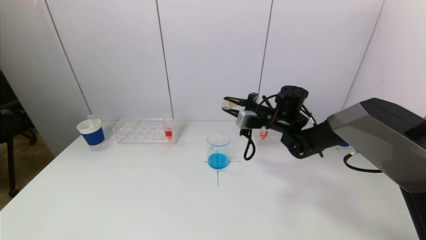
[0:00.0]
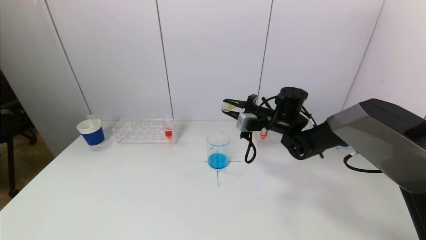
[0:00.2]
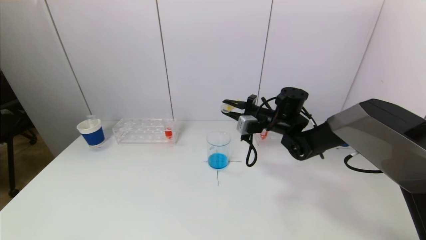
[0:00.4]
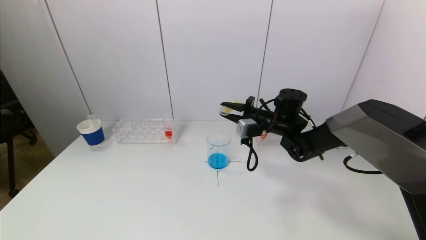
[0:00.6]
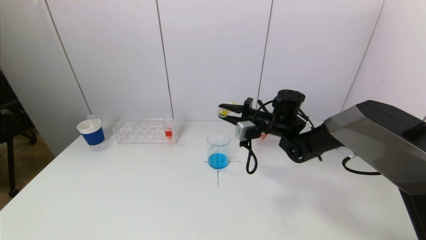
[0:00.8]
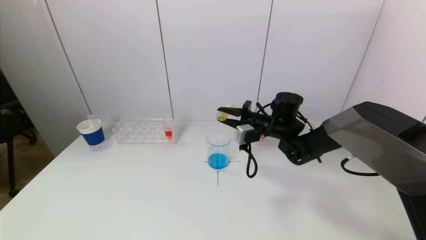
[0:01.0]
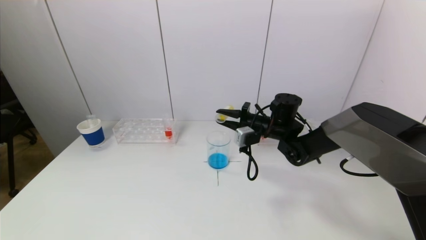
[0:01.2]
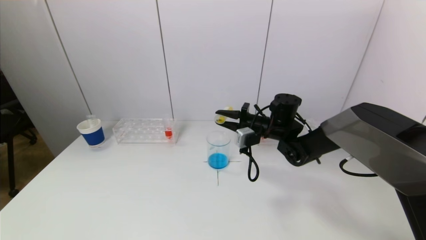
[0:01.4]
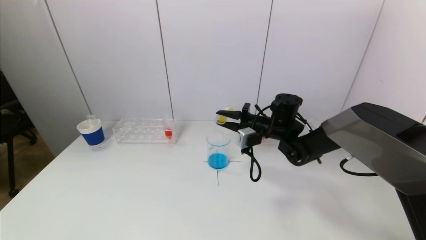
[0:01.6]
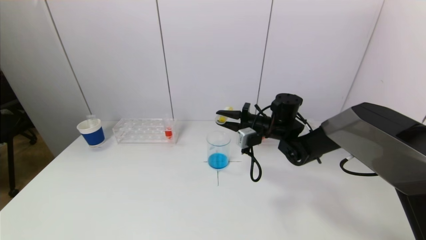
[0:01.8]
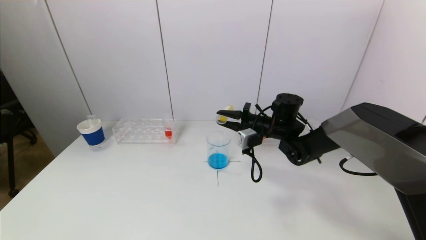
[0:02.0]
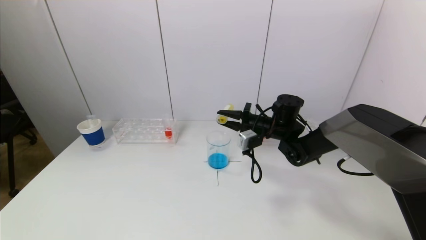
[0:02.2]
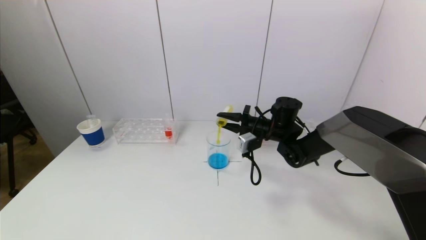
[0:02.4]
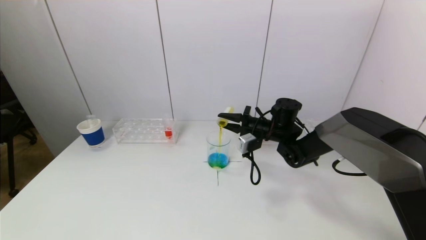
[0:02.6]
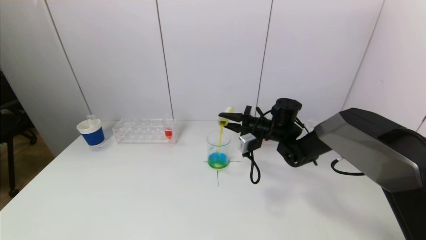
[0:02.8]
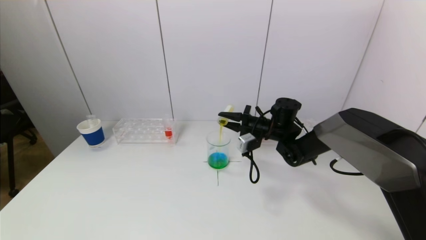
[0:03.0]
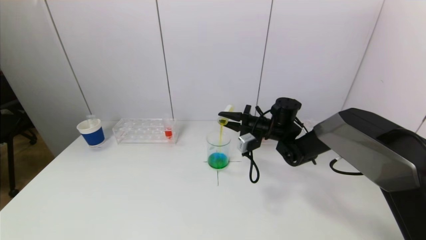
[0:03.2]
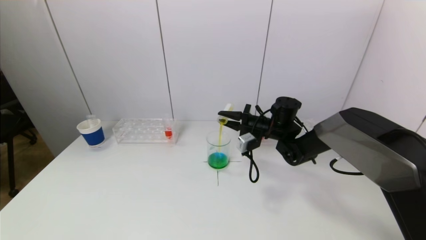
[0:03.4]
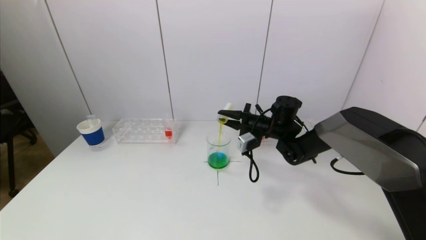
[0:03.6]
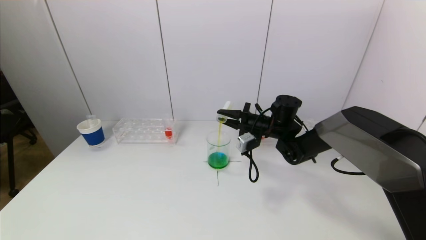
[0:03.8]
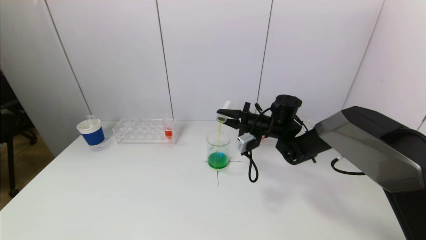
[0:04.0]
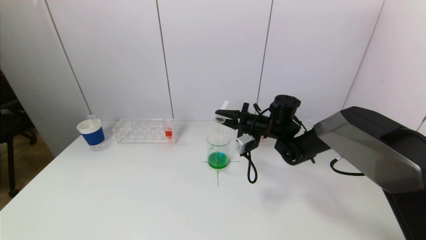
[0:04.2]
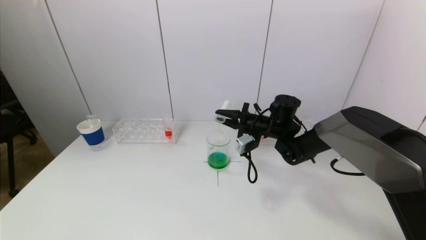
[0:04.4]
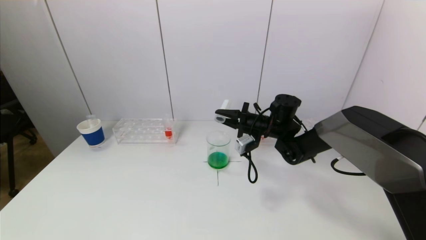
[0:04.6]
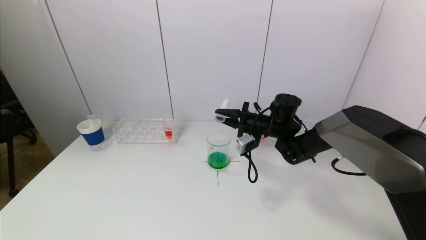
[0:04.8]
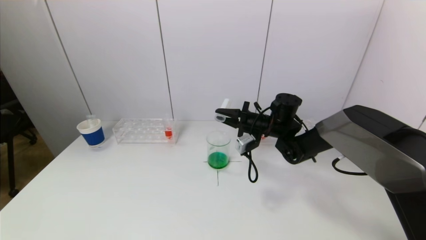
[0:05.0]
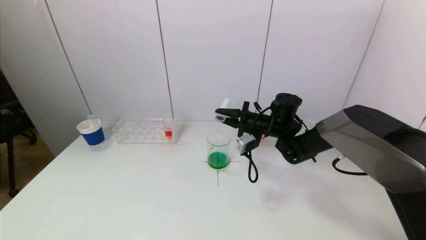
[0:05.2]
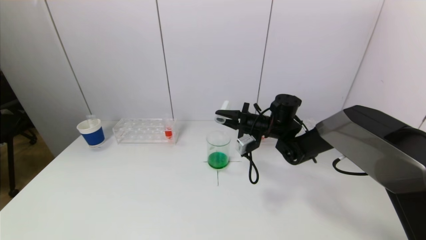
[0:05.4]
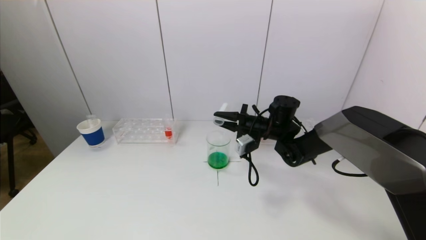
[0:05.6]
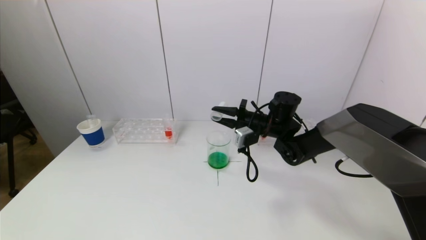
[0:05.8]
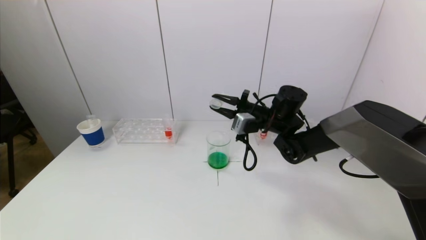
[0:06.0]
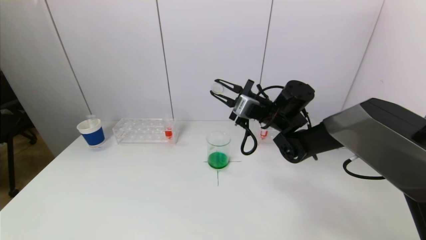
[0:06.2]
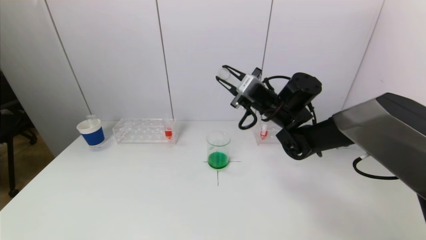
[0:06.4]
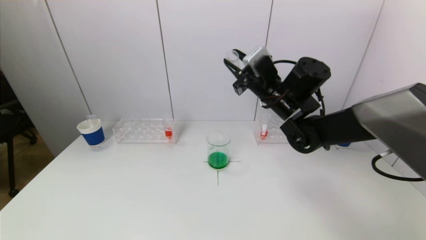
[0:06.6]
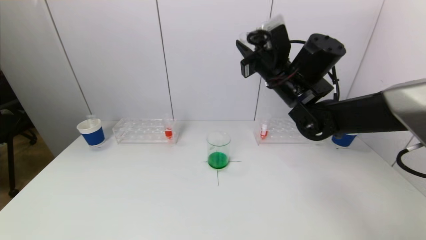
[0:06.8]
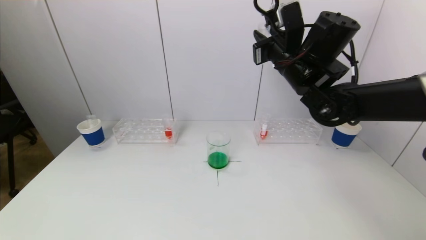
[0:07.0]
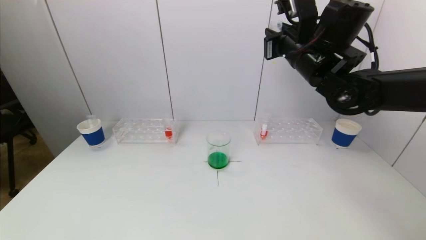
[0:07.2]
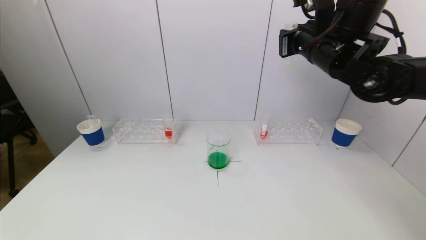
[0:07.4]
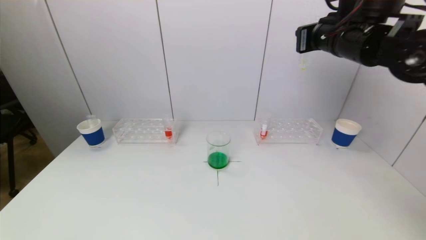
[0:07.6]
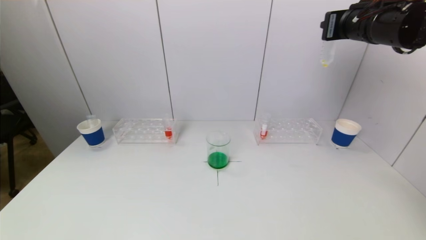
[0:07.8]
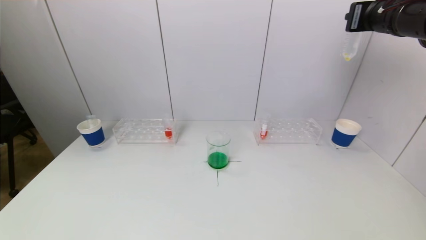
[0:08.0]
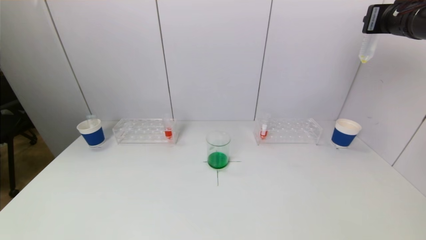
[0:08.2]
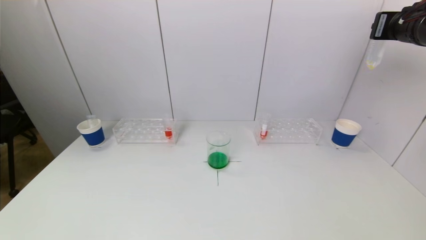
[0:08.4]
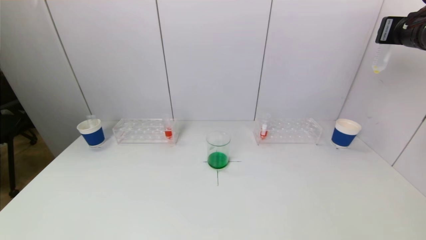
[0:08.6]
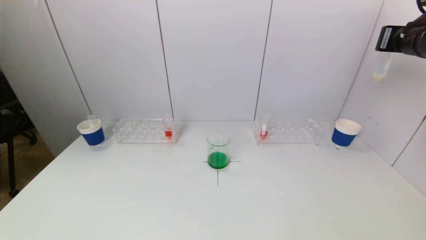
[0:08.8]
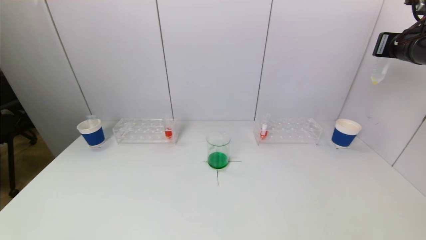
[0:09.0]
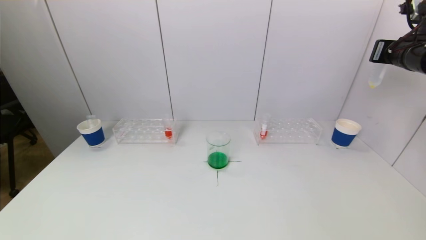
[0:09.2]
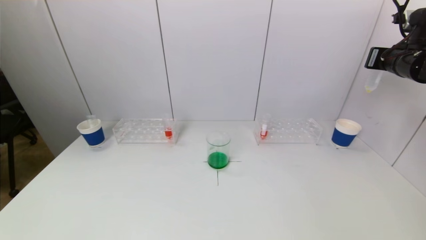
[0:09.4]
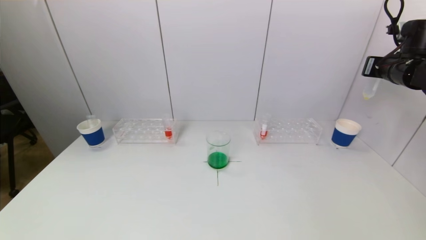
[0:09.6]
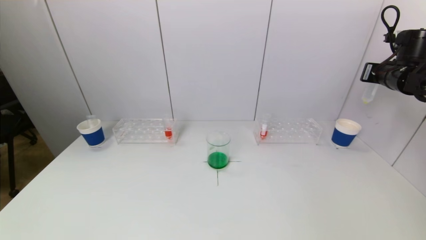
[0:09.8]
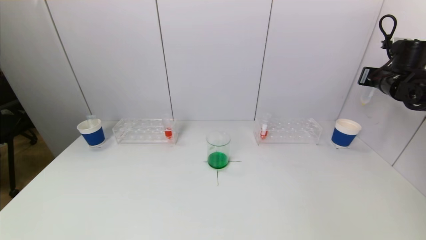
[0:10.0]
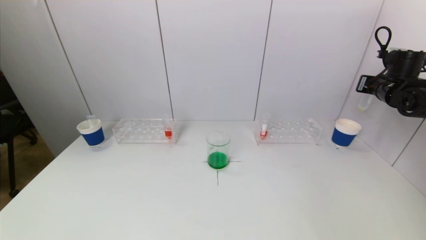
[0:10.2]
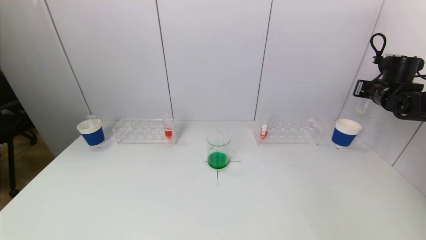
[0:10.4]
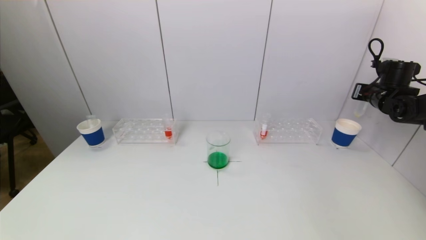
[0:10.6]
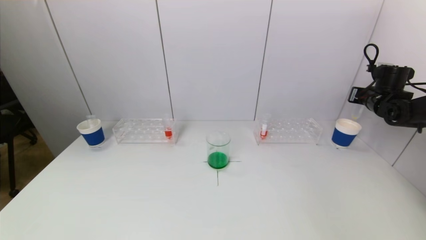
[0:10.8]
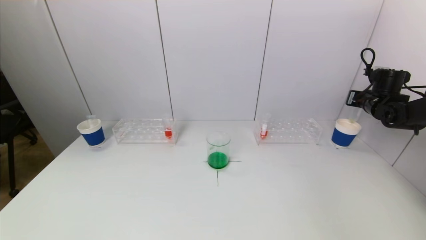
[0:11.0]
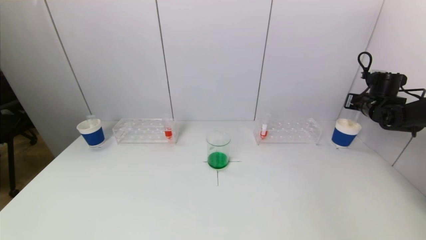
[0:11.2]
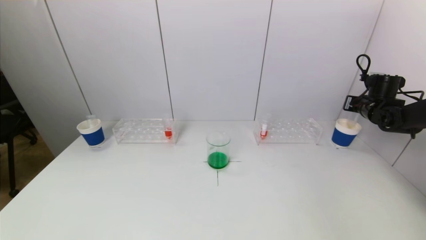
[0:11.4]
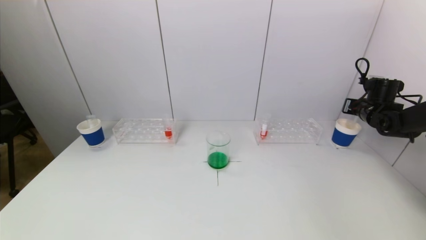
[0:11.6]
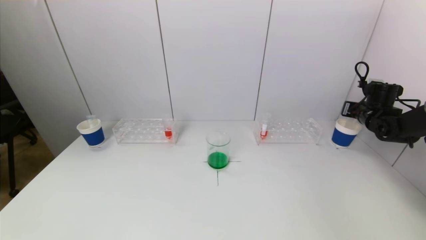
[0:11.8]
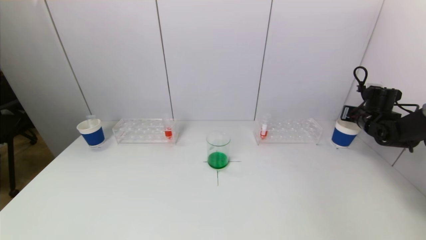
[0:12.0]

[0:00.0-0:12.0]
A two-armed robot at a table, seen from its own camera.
Task of the whole recording: pick up a test tube with pigment on left test tube rack and a test tube with pigment on right test tube rack by grippers and pour them into the beaker.
Step, 0:00.0 to 0:04.4: Pour the yellow reagent into the graduated cylinder with the right gripper.
0:00.0 to 0:03.0: The grippers move only a little.
0:03.0 to 0:04.4: The grippers stay close to where they were, moving slightly.
0:04.4 to 0:06.0: The right gripper ends up about 5 cm from where it was.
0:06.0 to 0:07.6: The right gripper is displaced upward and to the right by about 20 cm.
0:07.6 to 0:09.0: The right gripper is displaced to the right by some 15 cm.
0:09.0 to 0:10.4: The right gripper goes some 15 cm downward, forward and to the right.
0:10.4 to 0:12.0: The right gripper goes about 10 cm downward.

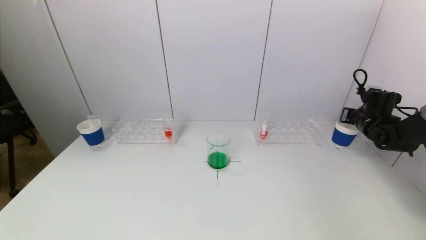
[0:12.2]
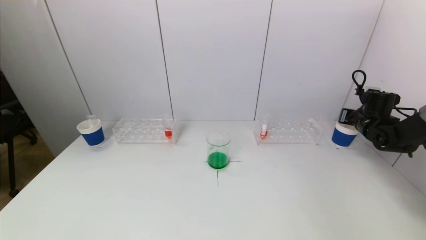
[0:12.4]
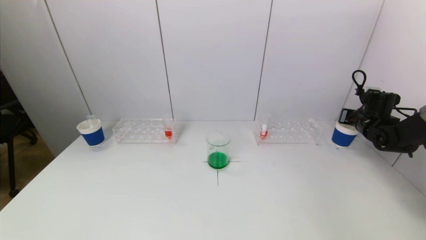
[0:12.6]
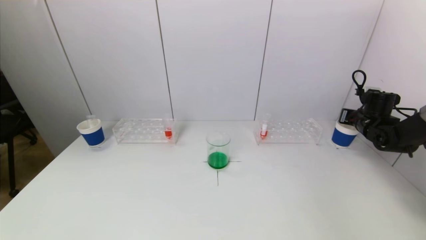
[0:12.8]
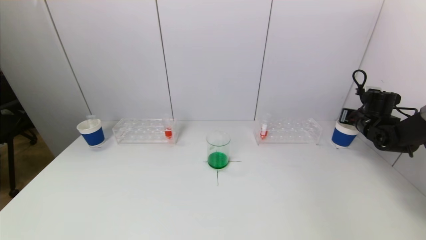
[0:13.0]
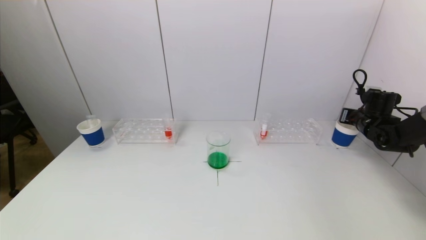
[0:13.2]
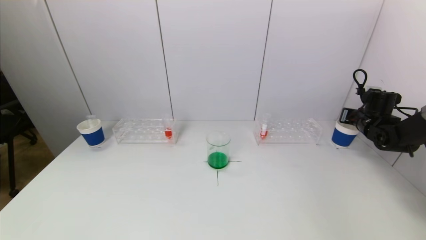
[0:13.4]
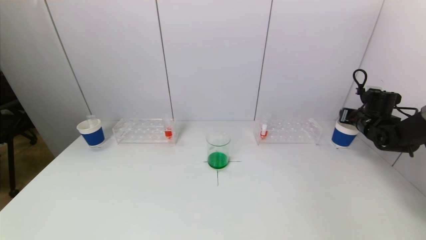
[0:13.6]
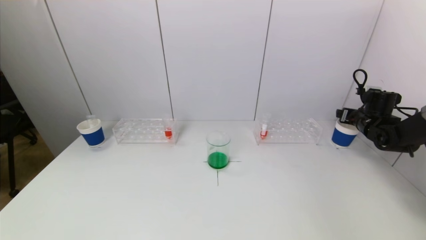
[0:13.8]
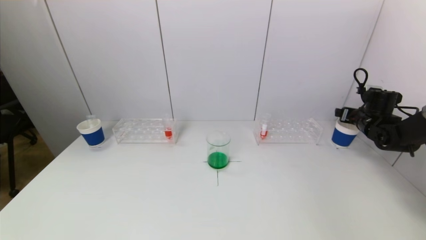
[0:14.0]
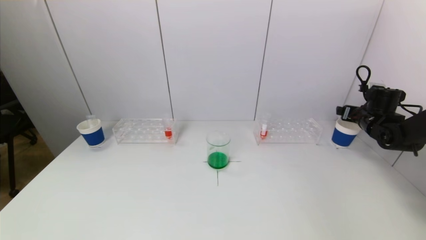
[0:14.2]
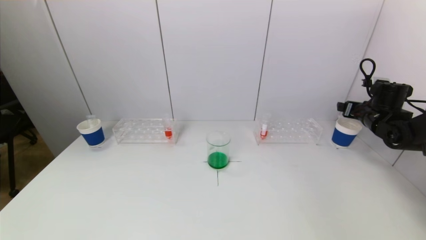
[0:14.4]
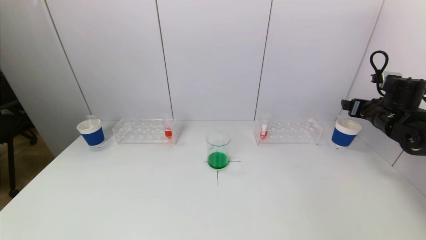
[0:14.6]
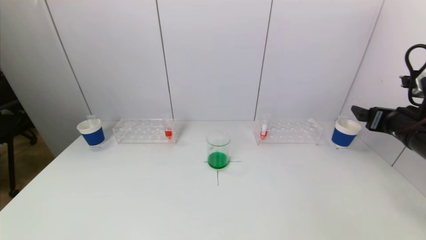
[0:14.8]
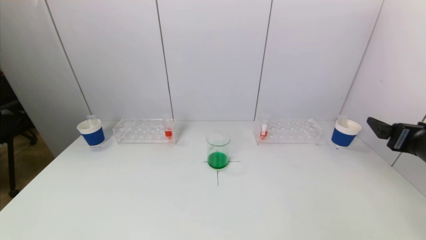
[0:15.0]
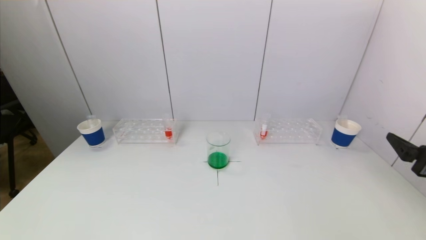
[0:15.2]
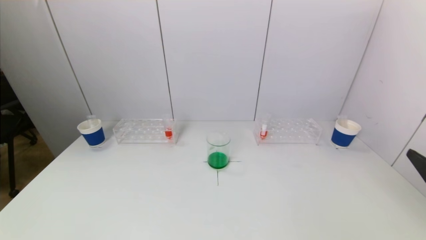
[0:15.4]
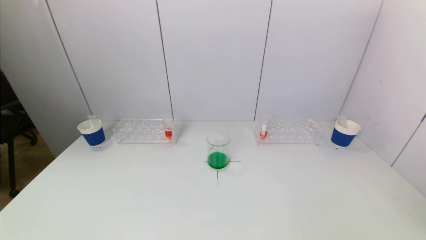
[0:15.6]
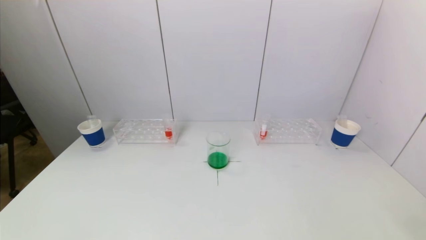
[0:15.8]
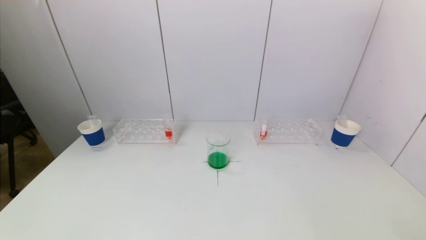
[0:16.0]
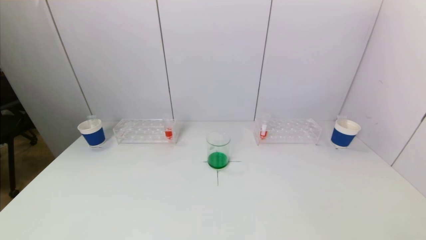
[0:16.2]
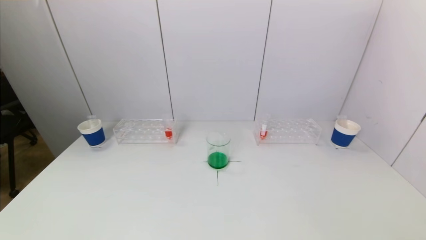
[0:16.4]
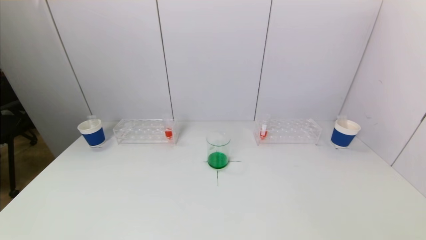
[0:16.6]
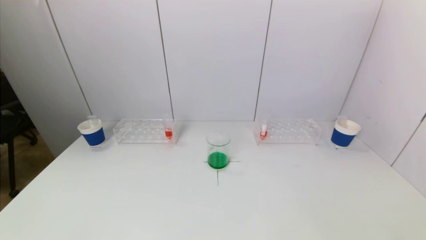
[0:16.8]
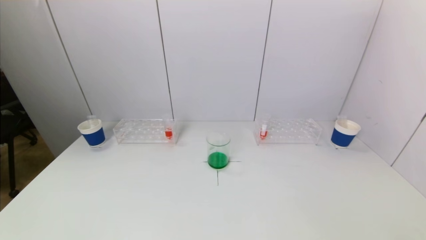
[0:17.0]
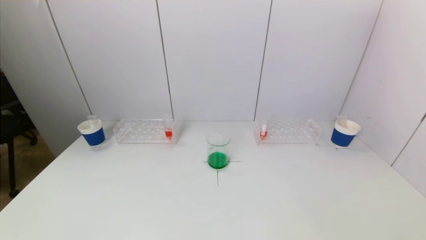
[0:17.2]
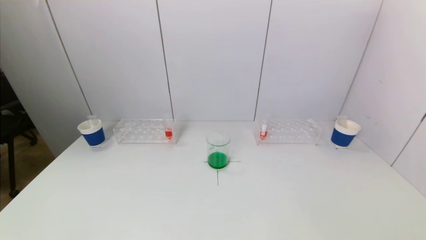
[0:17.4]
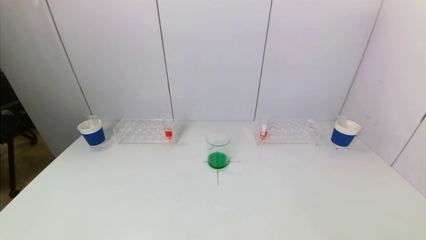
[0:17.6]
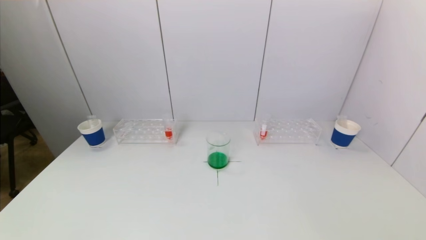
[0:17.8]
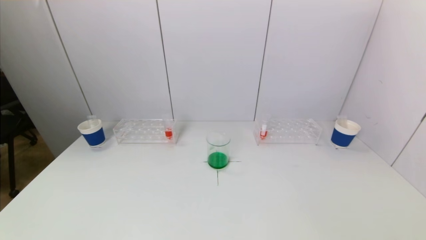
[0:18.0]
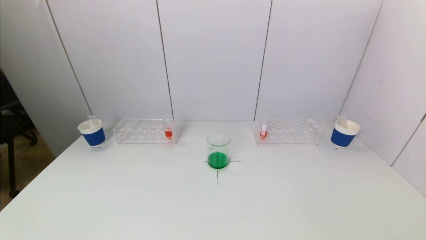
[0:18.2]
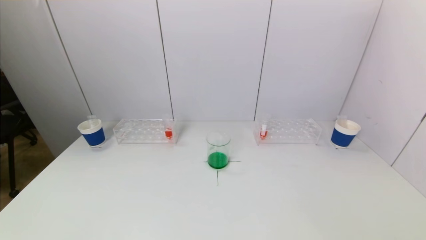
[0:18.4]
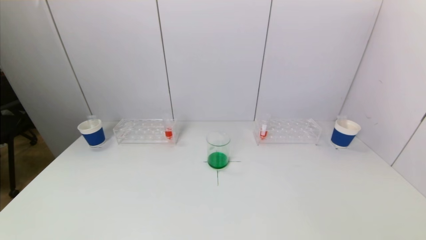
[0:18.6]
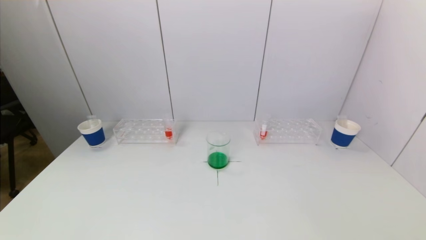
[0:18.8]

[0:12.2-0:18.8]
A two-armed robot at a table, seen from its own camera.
Task of the whole recording: pick up a test tube with pigment on left test tube rack and a test tube with pigment on right test tube rack by grippers and pour them into the beaker.
0:13.8 to 0:15.4: The right gripper travels backward by roughly 35 cm.
0:15.4 to 0:17.2: The right gripper travels backward and downward by approximately 15 cm.
